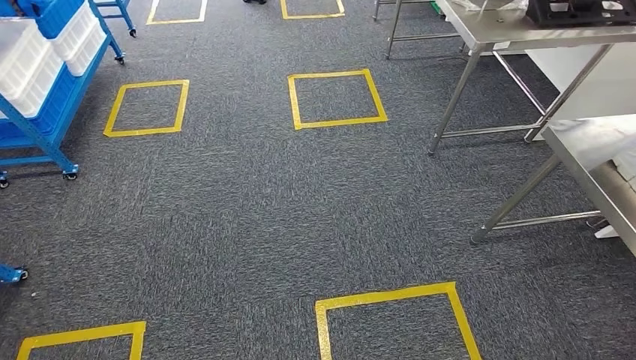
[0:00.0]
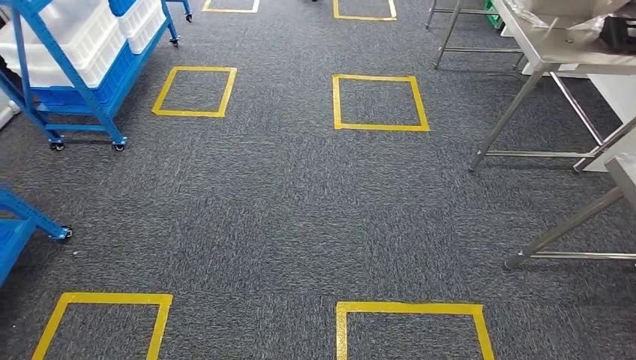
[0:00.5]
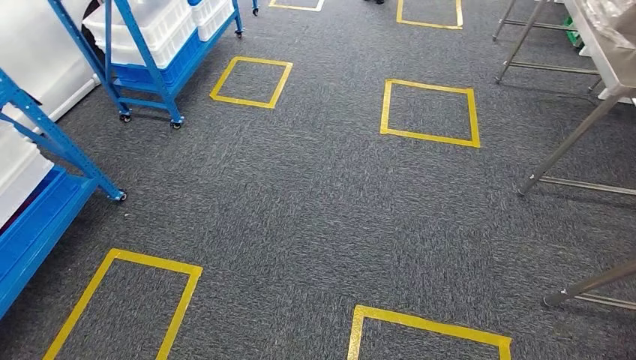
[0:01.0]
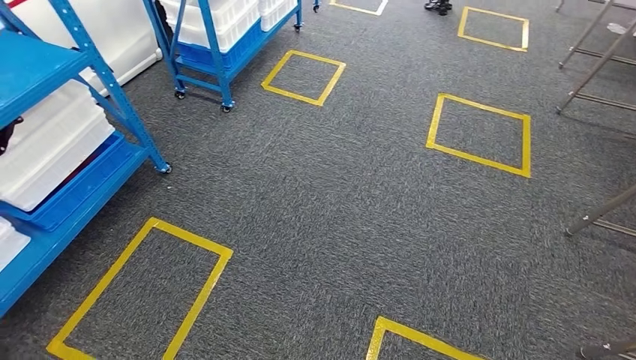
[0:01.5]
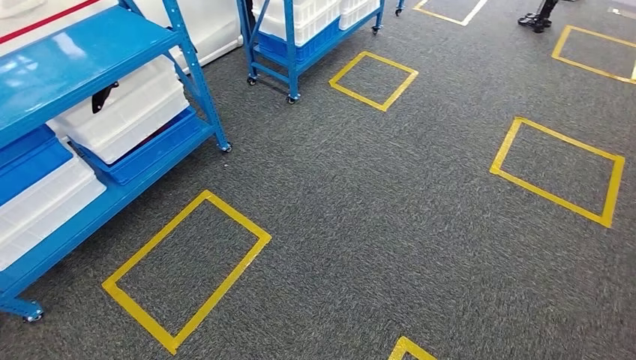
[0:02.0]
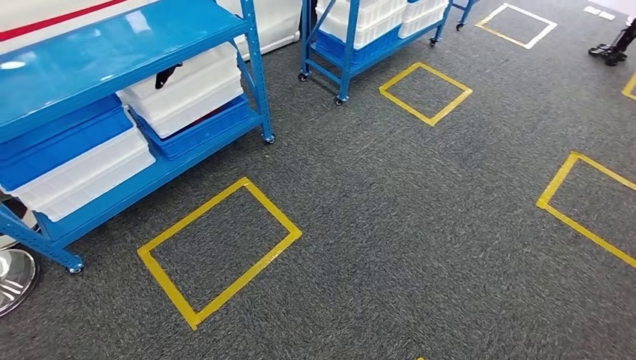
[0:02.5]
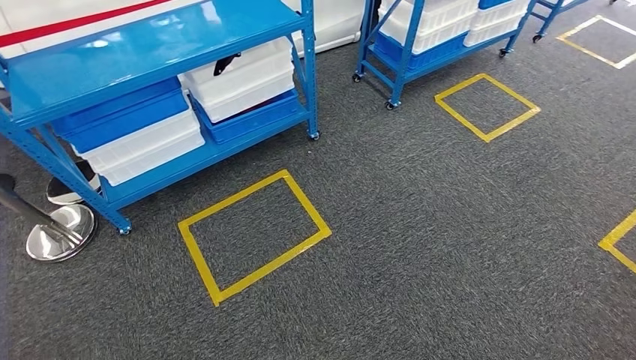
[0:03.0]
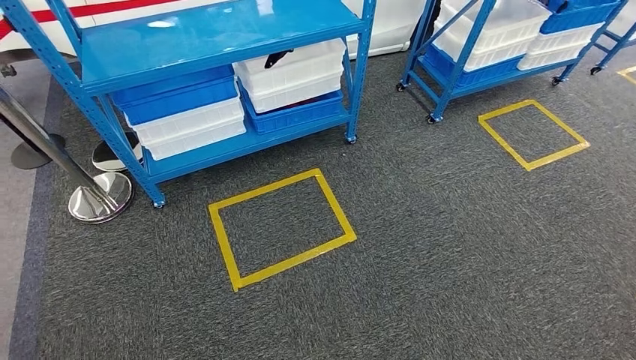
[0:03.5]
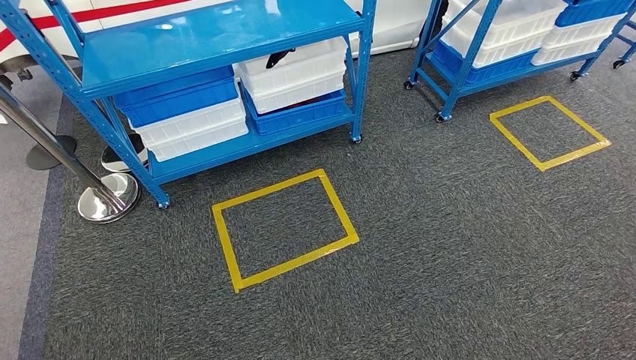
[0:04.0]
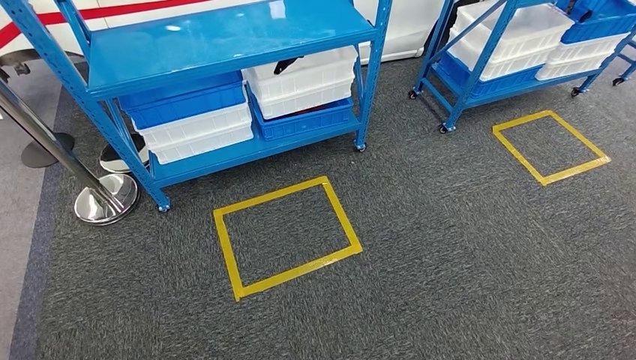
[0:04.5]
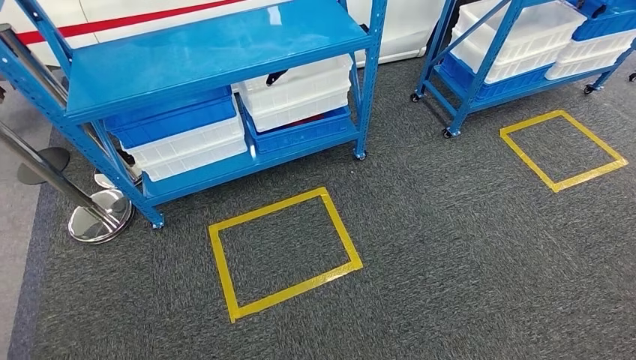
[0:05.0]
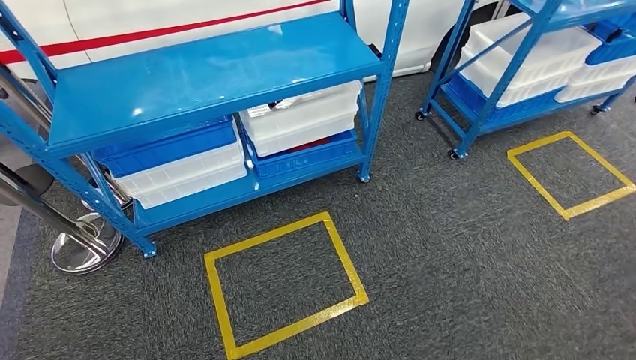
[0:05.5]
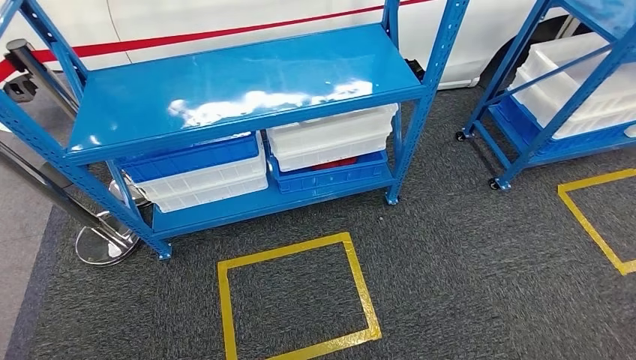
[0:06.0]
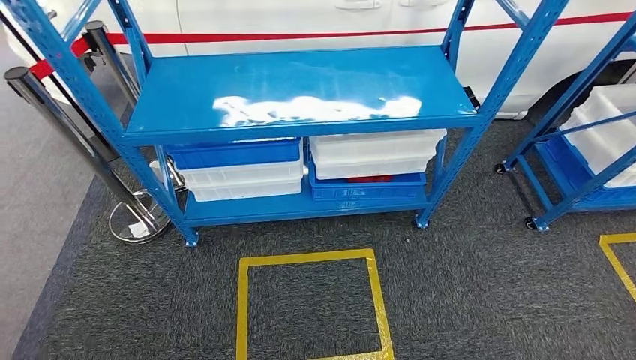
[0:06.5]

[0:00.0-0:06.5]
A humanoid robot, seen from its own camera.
Step, 0:00.0 to 0:06.5: Return to the initial position at the shelf.
